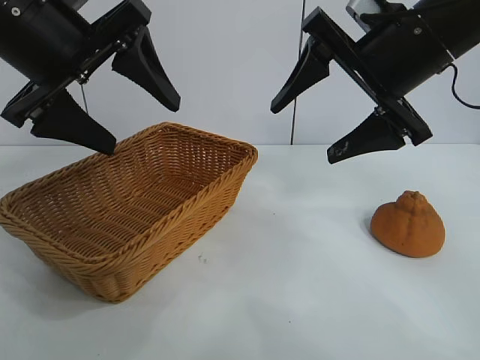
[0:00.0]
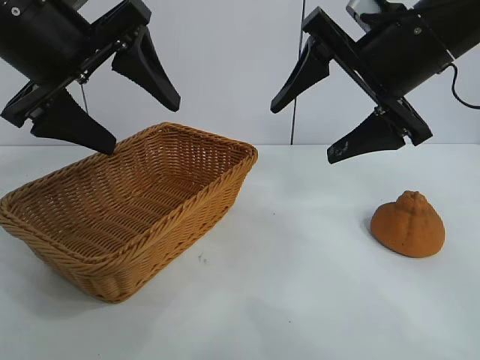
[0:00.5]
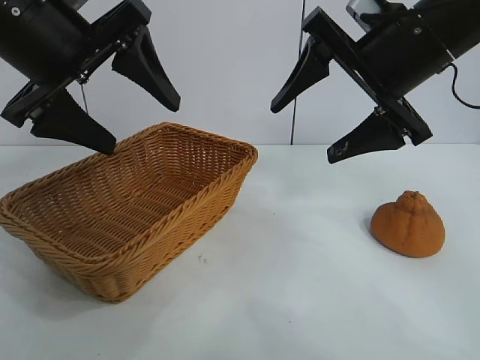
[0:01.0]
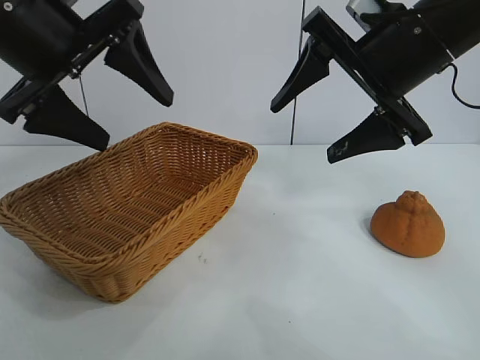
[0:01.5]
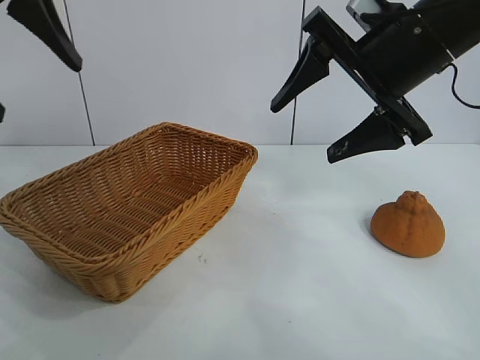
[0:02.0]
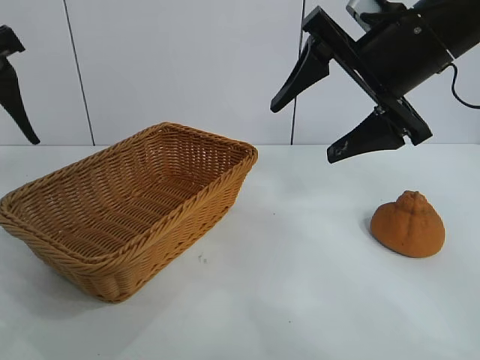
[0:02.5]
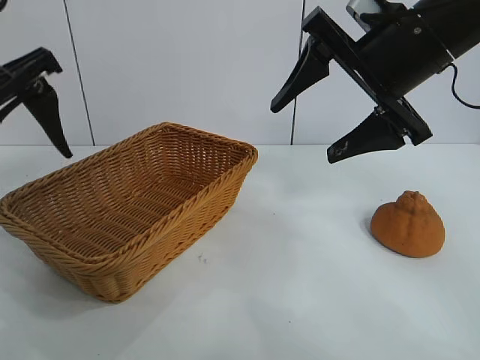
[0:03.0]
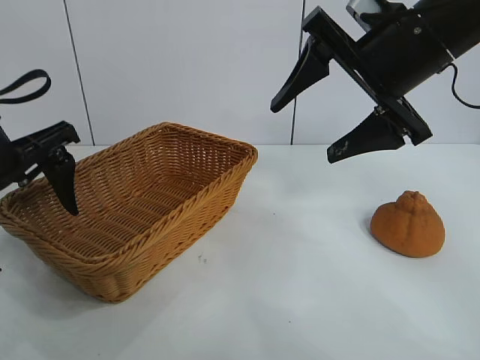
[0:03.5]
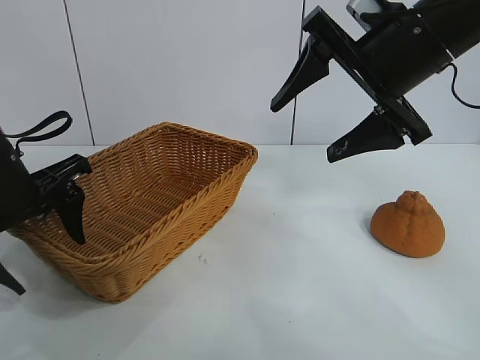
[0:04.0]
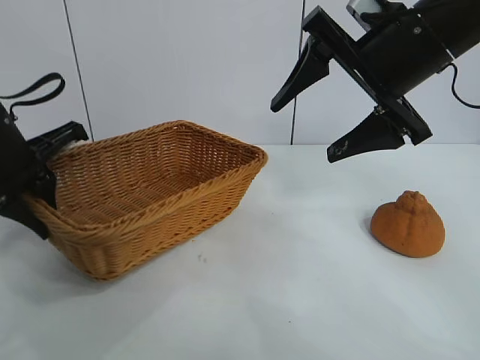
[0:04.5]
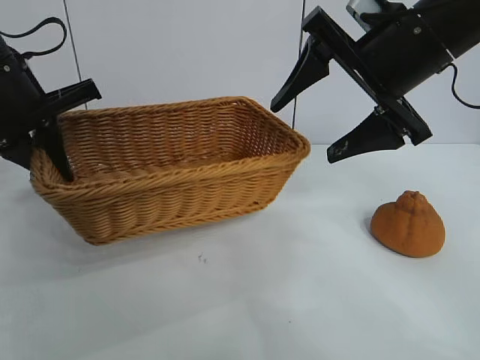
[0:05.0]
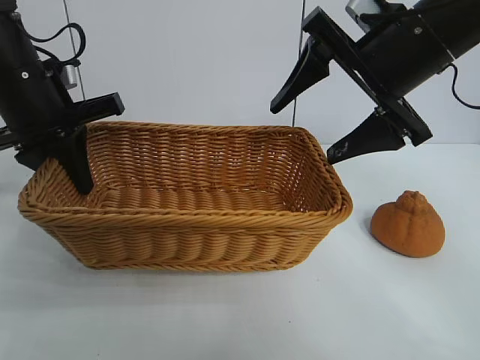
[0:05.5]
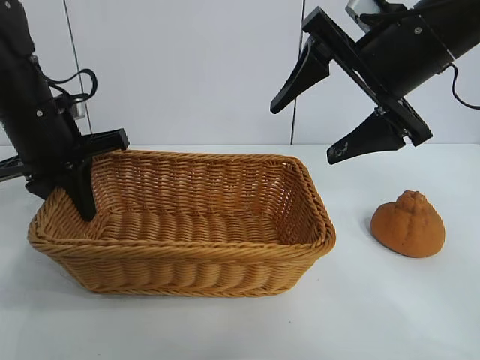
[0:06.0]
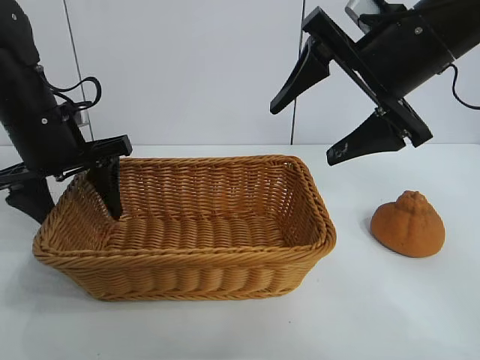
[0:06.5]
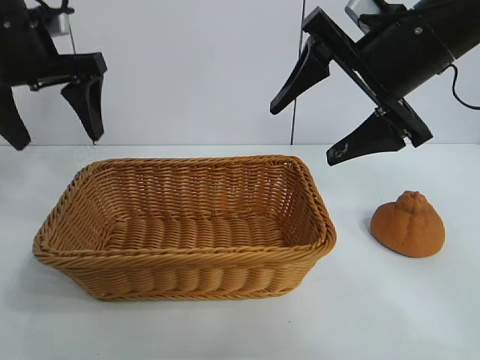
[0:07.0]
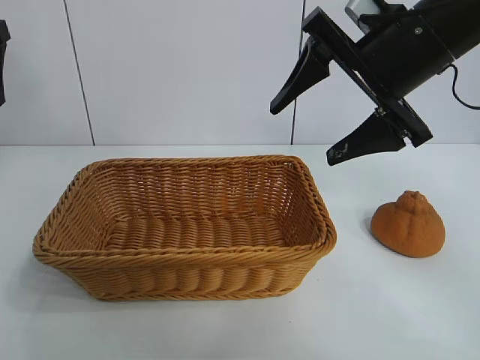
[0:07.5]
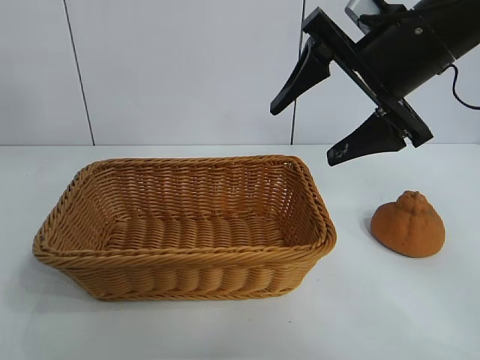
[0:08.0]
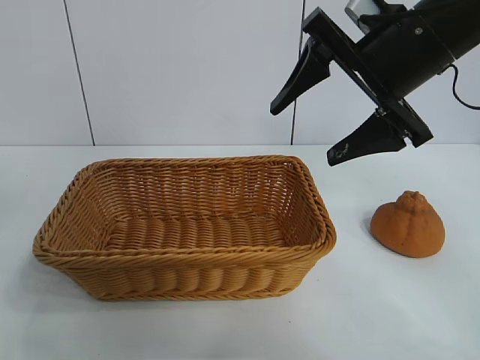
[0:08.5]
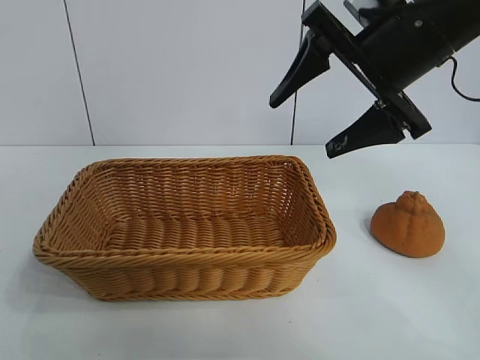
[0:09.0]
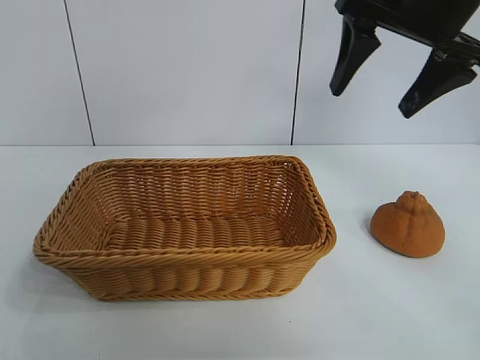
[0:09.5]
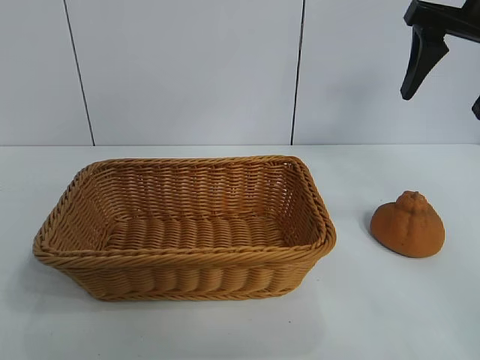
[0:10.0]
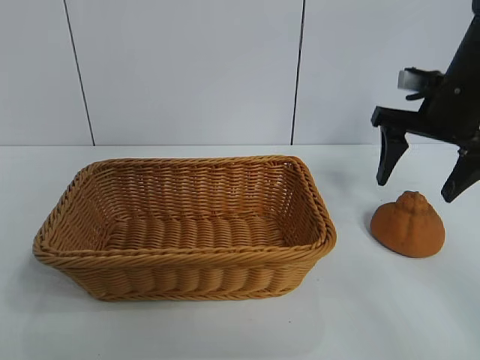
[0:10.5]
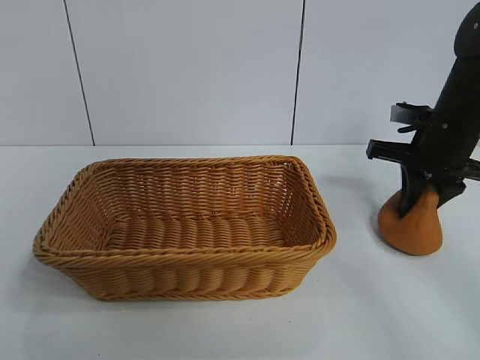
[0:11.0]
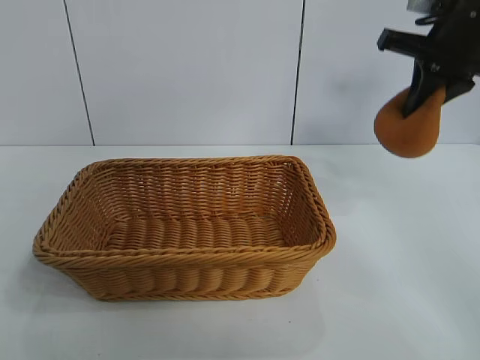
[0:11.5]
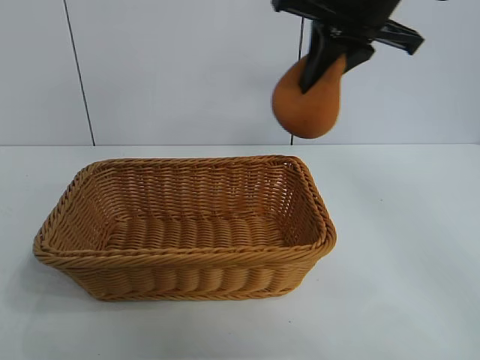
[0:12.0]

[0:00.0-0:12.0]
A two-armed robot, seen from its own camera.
Task of the whole recording: pick up the orange and put it into the basket.
Step, 0:01.5 to 0:04.0: Grasp the basket with left gripper.
Step, 0:04.5 to 0:06.5: Place the basket in the center of view with left gripper.
Step, 0:07.0 to 0:10.5: Grasp the orange with right gripper.

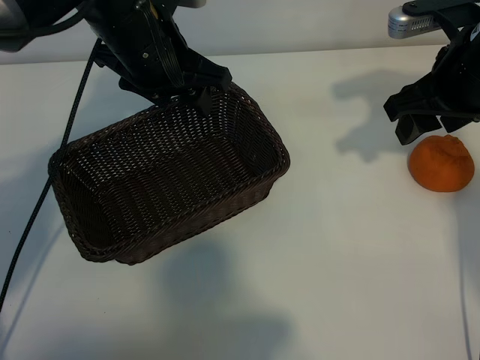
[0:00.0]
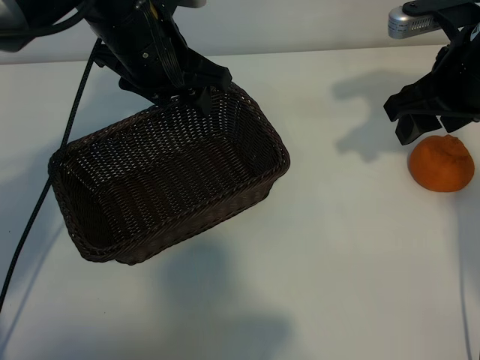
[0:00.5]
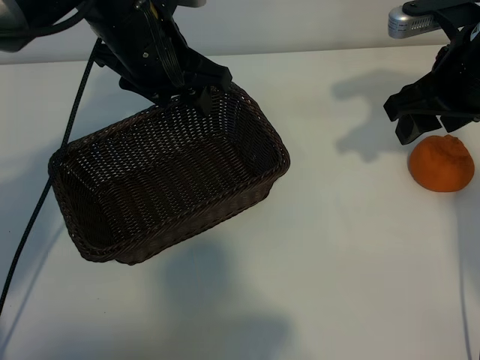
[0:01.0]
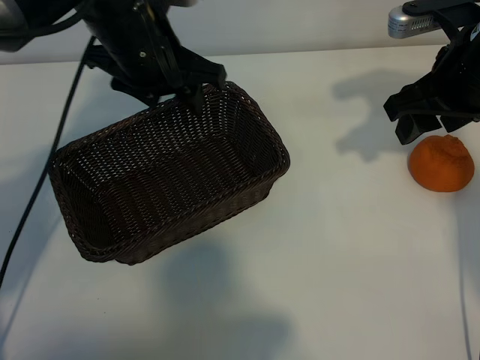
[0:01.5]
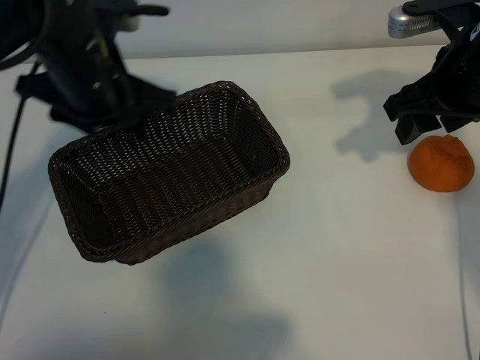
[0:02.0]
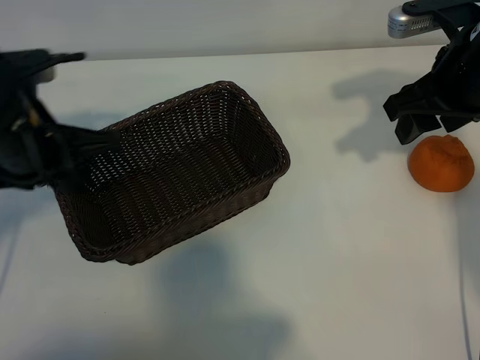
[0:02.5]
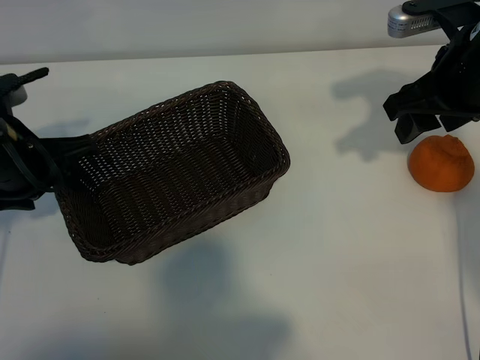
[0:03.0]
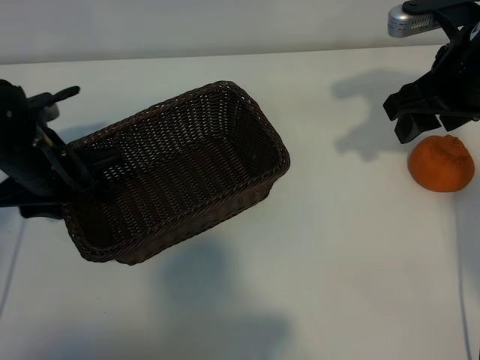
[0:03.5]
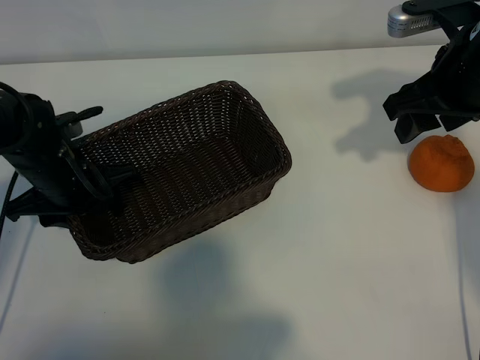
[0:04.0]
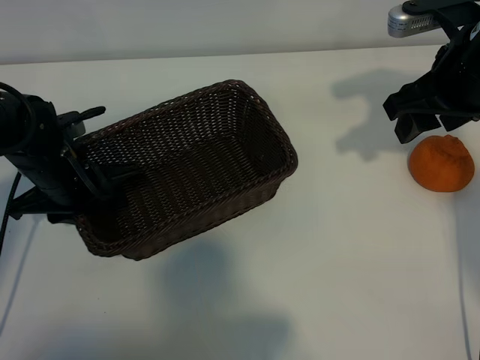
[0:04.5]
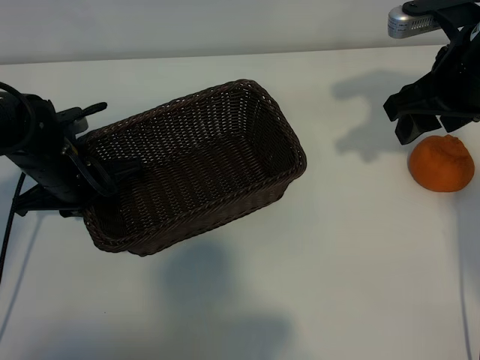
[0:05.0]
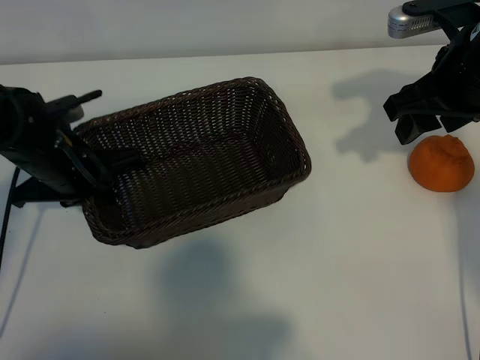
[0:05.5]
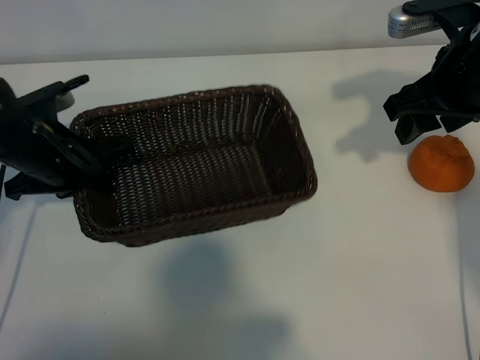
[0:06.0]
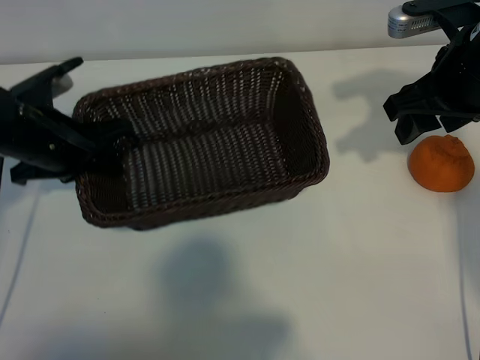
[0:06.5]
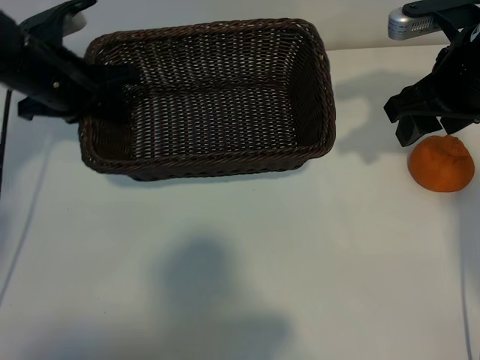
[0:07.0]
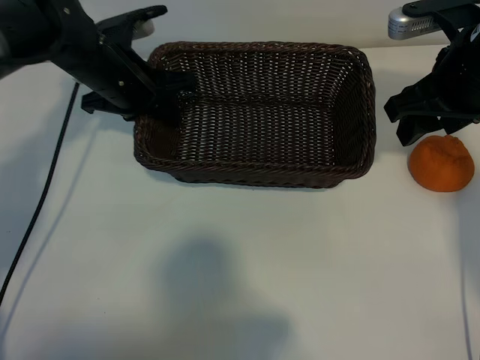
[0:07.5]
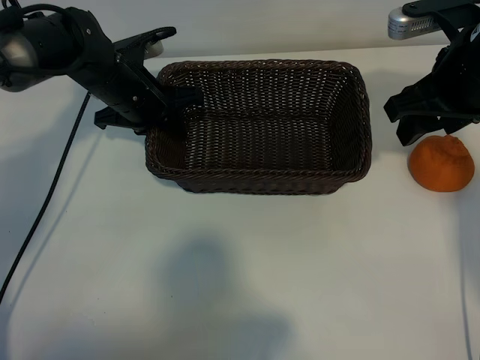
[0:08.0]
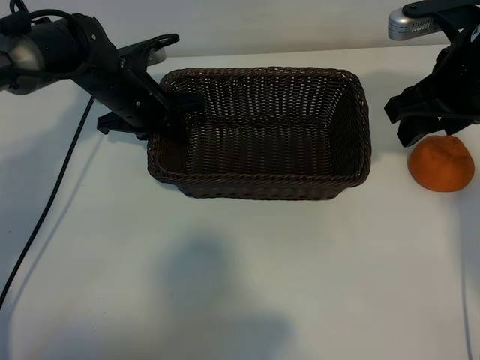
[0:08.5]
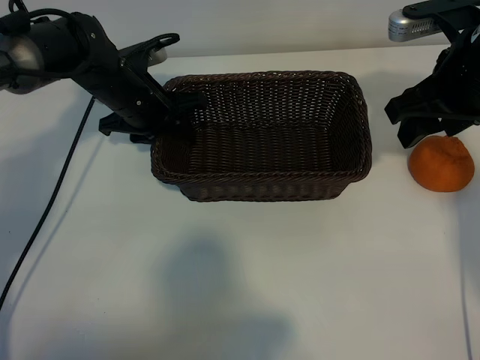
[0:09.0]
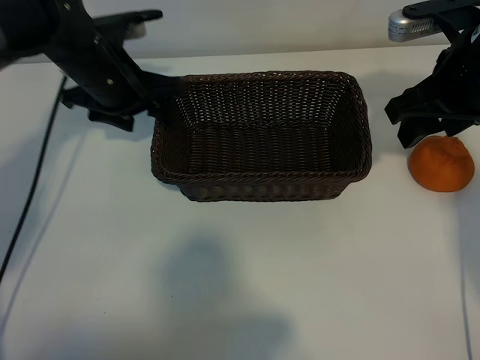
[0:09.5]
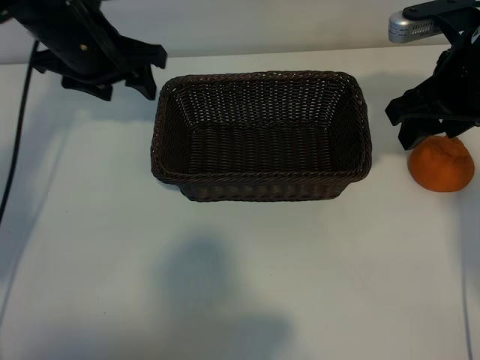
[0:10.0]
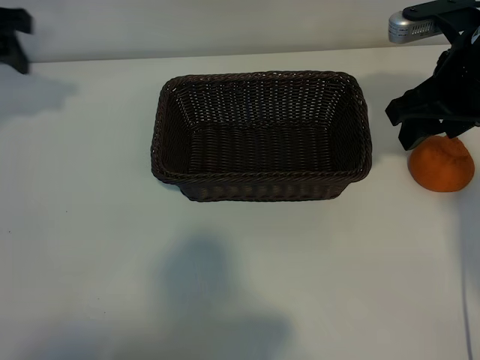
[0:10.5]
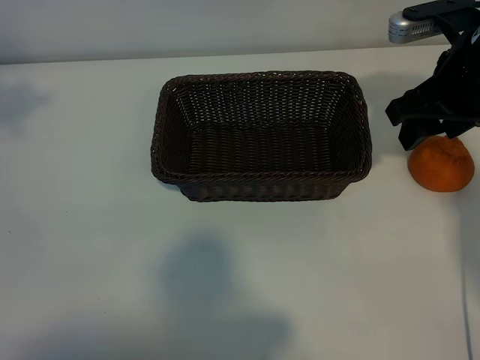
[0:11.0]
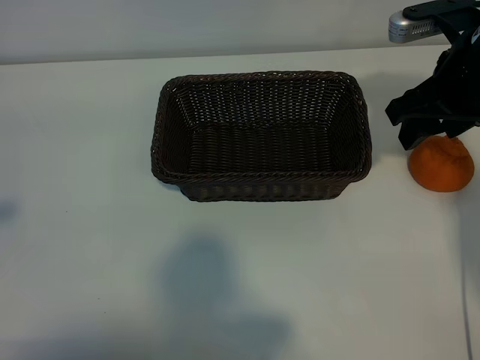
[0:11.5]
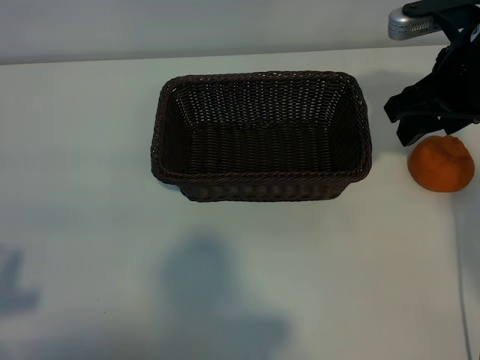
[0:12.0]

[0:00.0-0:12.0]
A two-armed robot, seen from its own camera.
Task of the whole recording: pick up the orange and put it into the basket.
Step, 0:01.5 to 0:04.5: Grasp the basket with left gripper.
Step, 0:05.0 to 0:08.5: Place the basket in the center of view with left gripper.

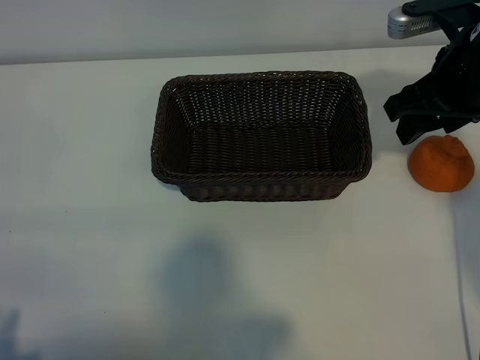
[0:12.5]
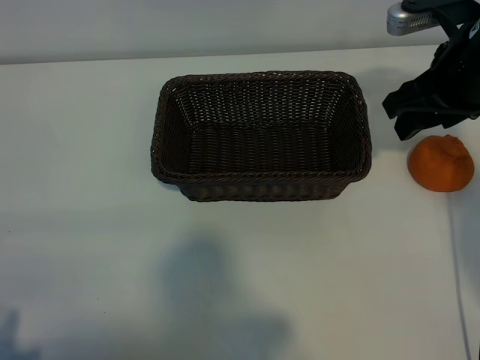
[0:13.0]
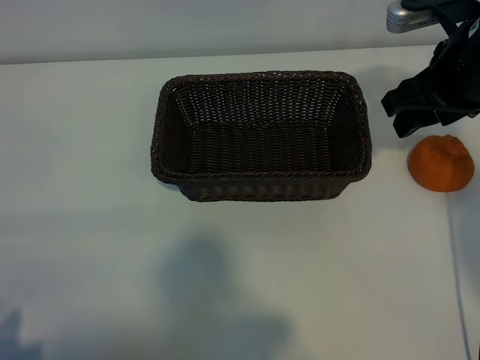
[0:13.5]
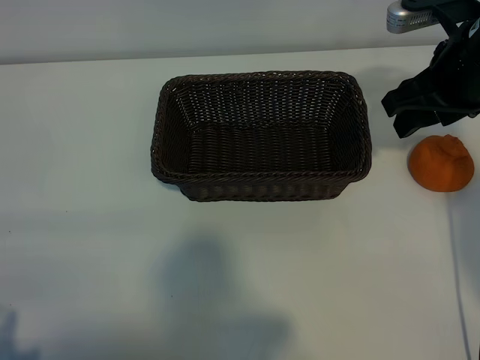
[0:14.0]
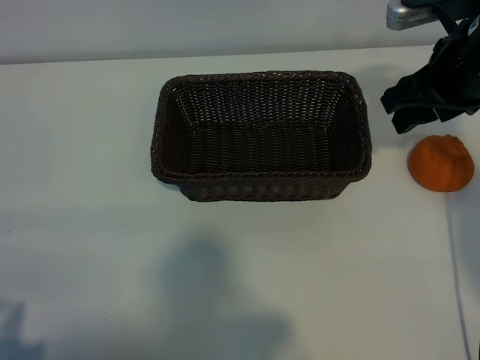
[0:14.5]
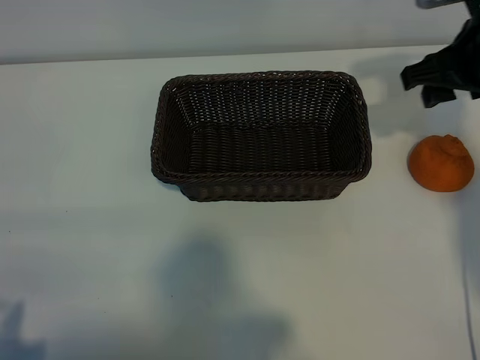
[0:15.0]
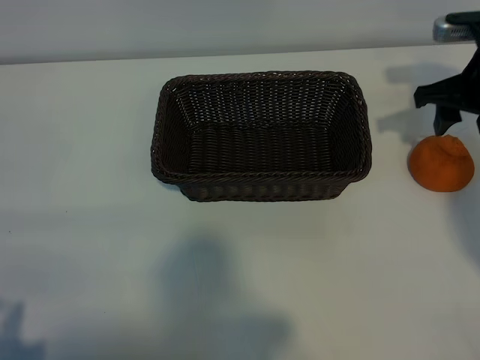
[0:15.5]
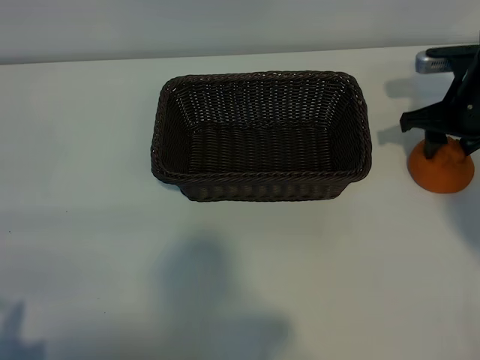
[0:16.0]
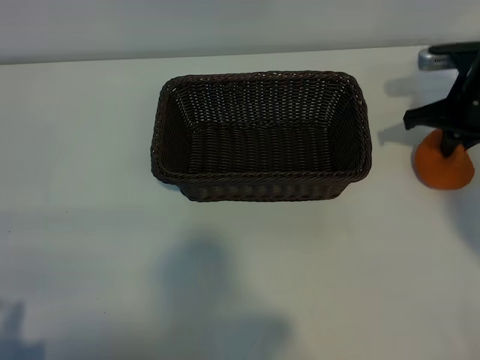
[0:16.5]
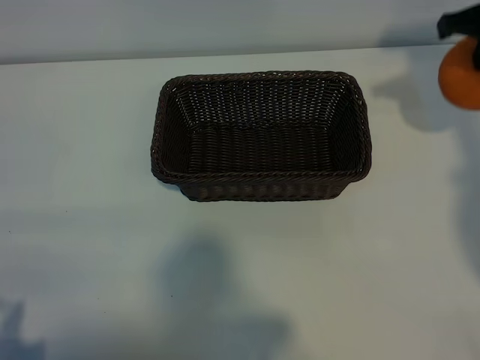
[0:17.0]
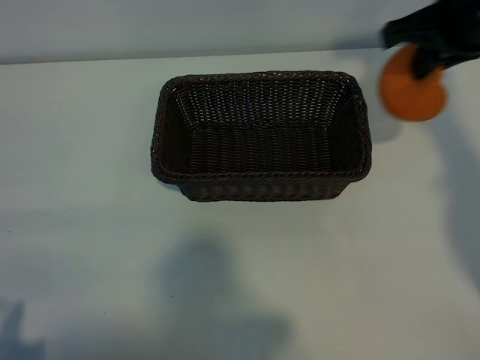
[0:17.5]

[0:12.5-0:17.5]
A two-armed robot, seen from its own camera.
Task of the whole recording: pick up the orange and put it into the basket.
Step, 0:12.5 to 0:16.0: Grasp the orange with right gripper.
